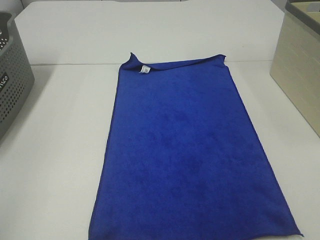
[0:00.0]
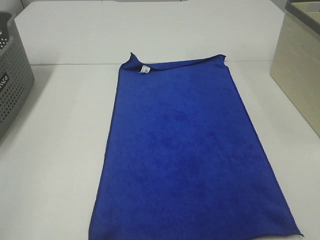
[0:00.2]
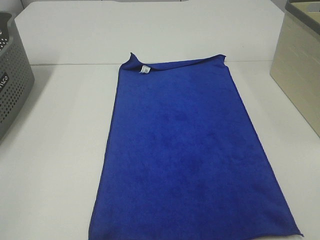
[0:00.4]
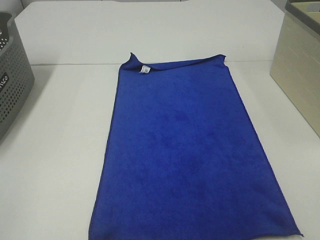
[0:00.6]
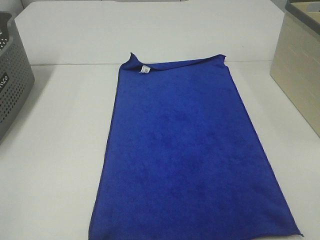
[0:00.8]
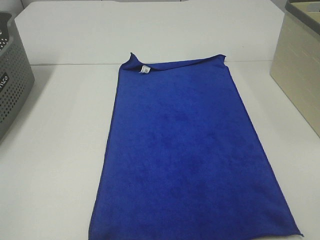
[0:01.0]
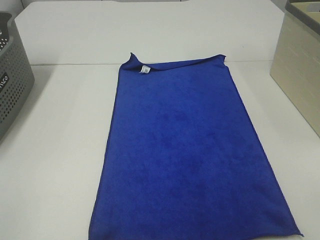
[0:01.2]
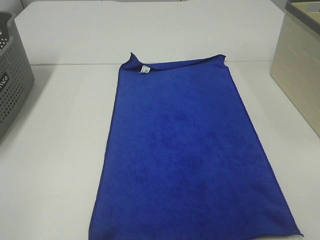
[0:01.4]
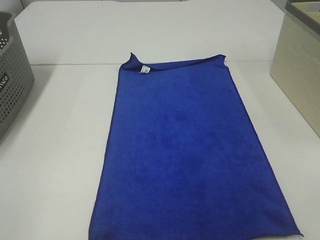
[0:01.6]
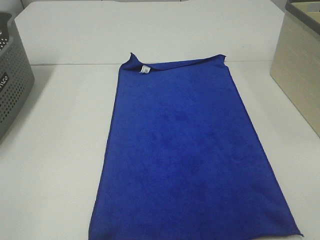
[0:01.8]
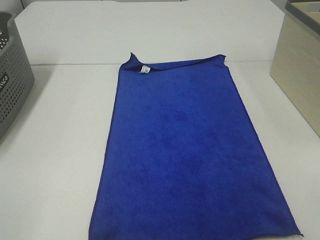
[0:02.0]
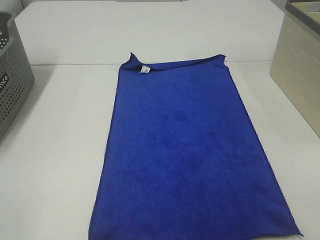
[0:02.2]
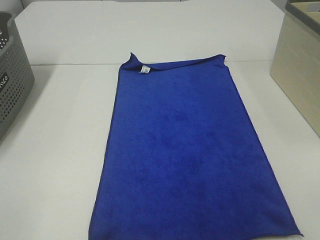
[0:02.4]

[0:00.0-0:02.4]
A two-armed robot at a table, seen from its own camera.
Task of the whole recording: Remove the towel and place it.
0:01.2 to 0:02.4: Both grippers stay about where they are.
